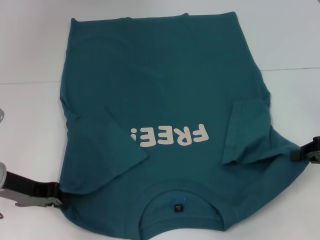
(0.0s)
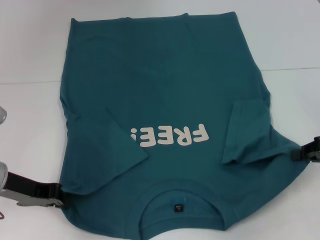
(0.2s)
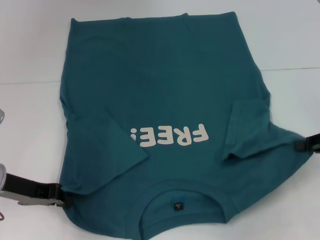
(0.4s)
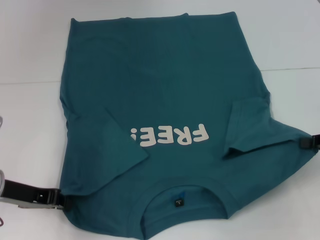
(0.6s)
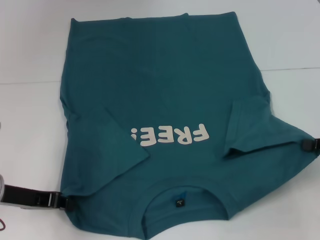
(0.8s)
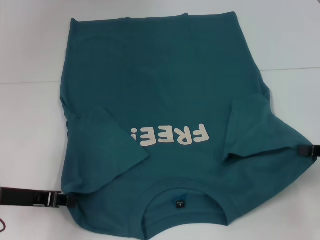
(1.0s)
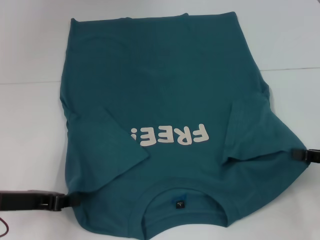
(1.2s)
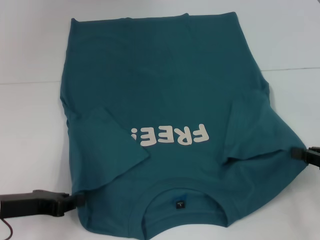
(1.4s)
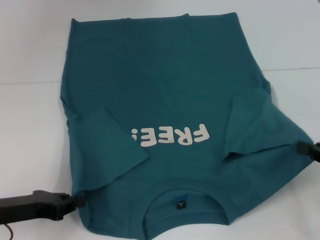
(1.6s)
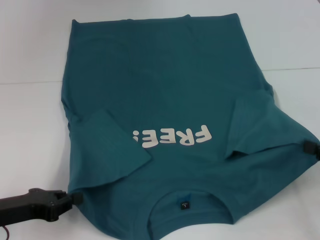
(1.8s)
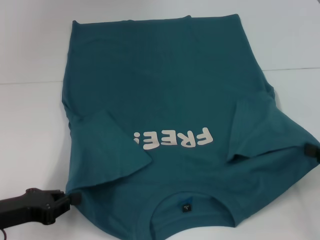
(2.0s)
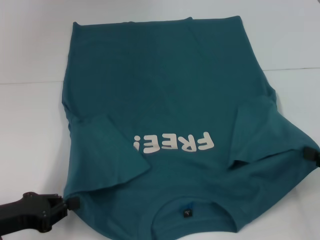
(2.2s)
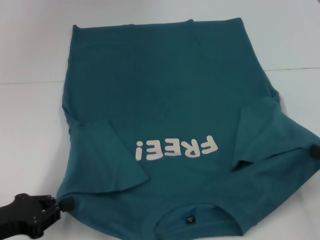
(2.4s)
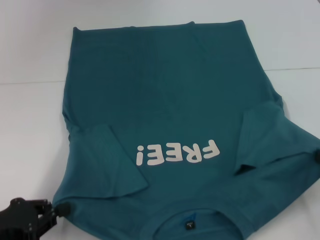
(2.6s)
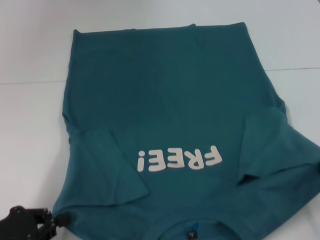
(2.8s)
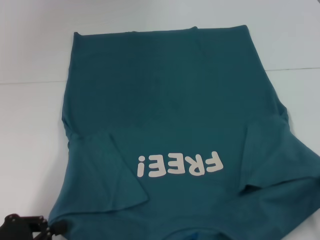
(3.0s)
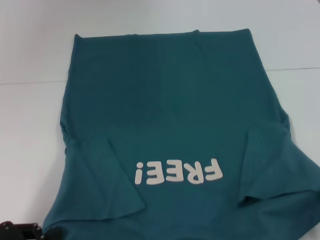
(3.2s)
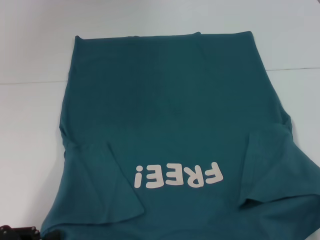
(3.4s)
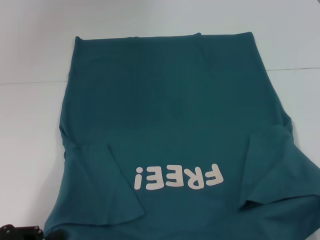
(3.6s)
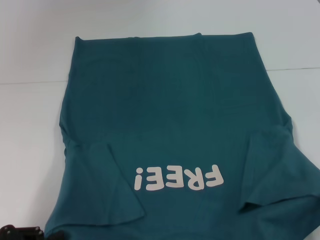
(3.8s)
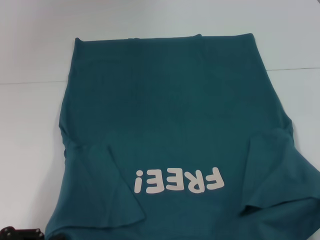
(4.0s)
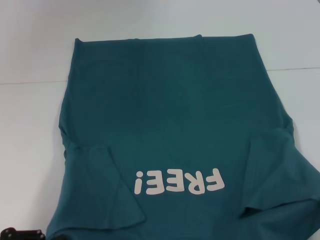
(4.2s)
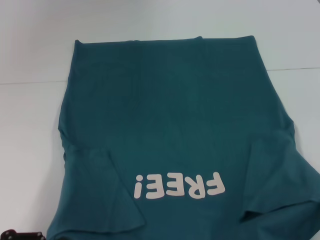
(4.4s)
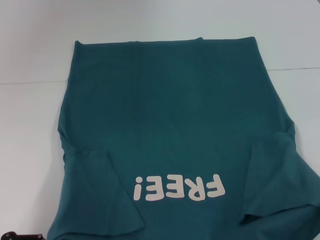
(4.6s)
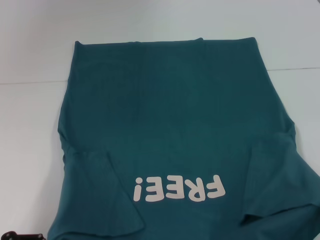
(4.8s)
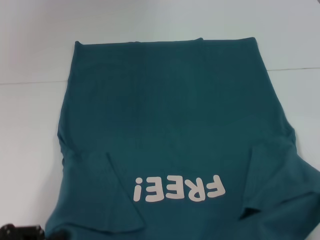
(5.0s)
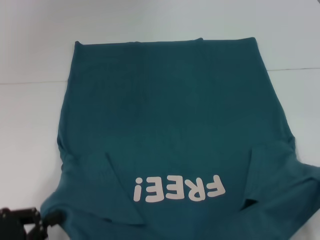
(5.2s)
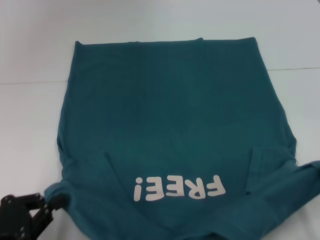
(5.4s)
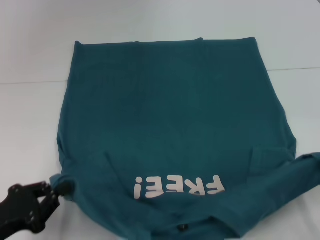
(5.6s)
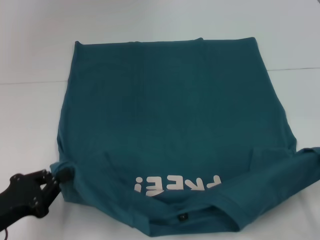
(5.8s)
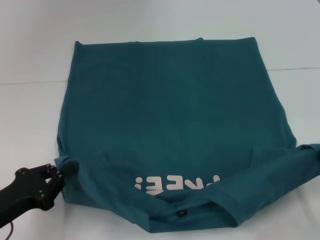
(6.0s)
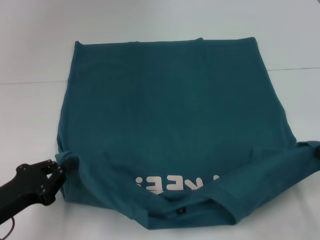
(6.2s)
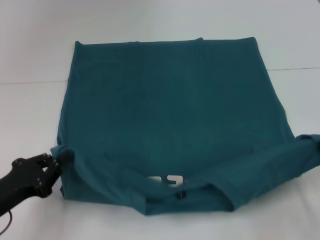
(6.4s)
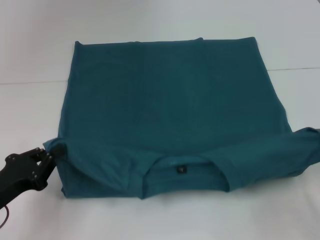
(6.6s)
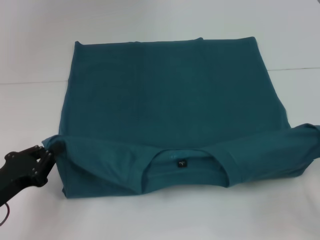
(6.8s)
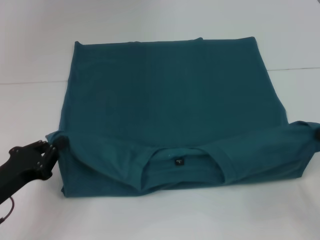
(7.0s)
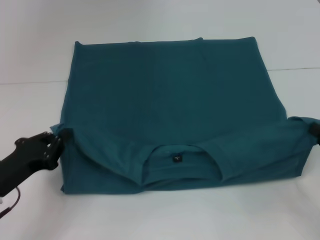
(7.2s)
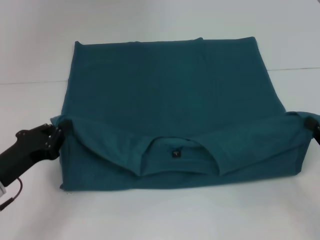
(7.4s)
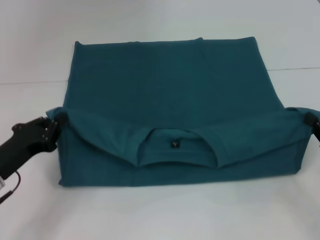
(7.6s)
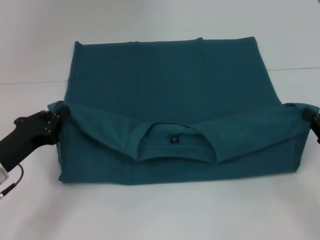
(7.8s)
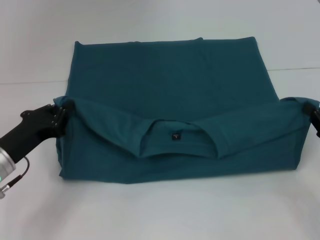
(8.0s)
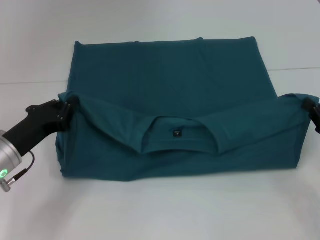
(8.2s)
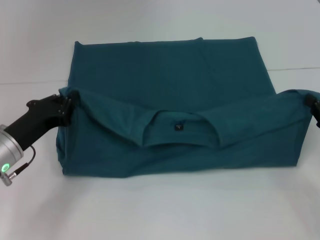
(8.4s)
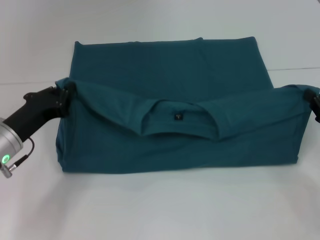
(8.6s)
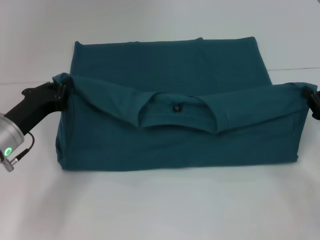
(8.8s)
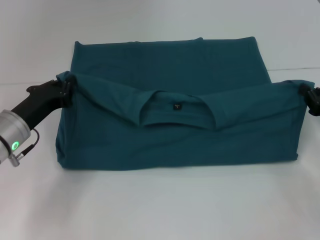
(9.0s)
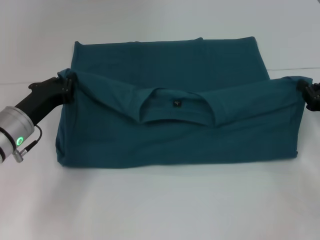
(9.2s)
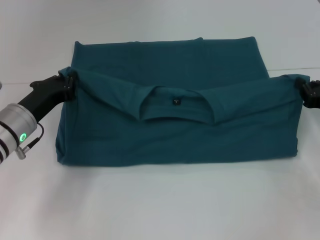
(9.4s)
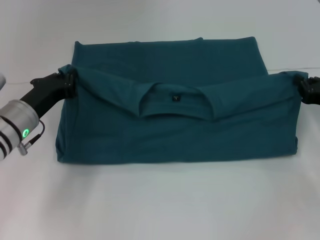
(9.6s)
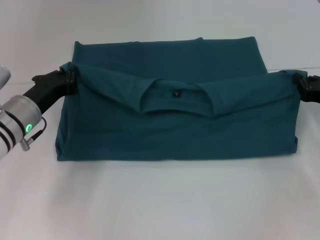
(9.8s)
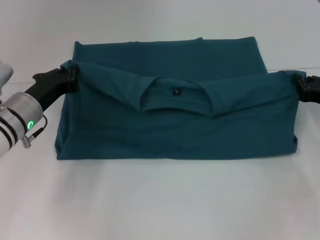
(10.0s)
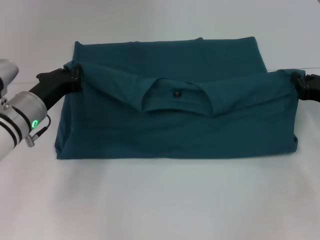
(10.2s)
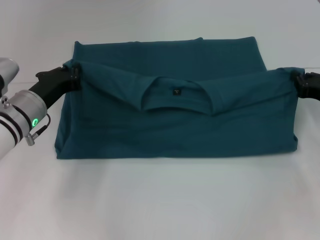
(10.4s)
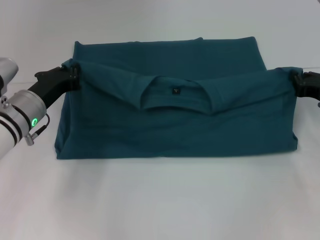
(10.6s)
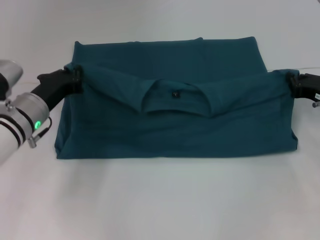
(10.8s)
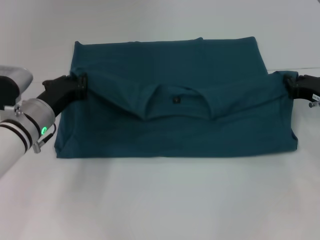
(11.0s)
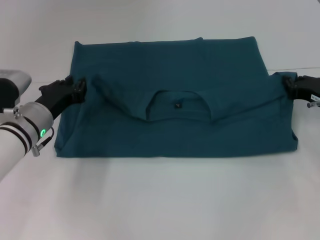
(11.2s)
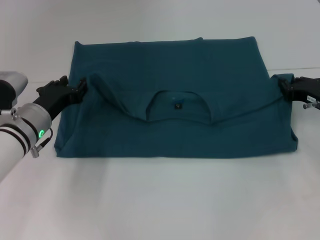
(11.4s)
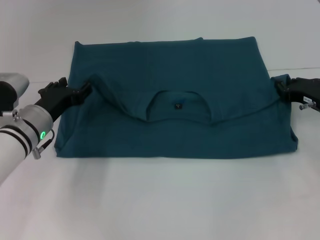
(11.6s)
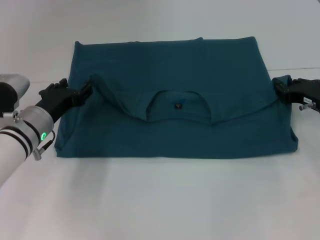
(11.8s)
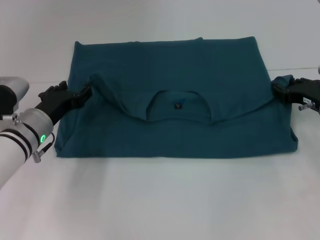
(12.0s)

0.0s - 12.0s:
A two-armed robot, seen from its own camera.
0.0s - 1.6s: Both grippers move backward, approximately 5 cm.
1.6s - 3.0s: Both grippers travel together backward, about 10 cm.
3.0s - 4.4s: There are only small adjustments of the grippers.
4.4s - 6.0s: Both grippers move forward, some 5 cm.
6.0s - 7.6s: The two grippers go some 5 cm forward.
7.6s - 9.0s: The two grippers go some 5 cm forward.
9.0s - 10.4s: The grippers move only a little.
10.4s - 12.0s: The left gripper opens up.

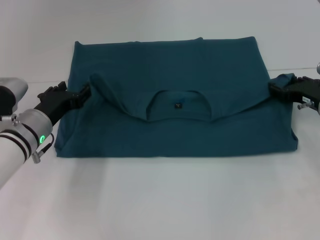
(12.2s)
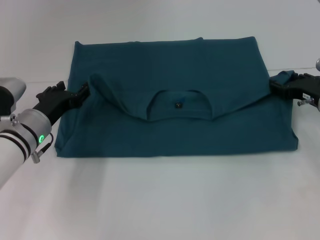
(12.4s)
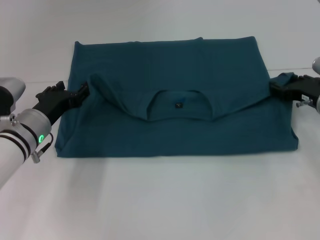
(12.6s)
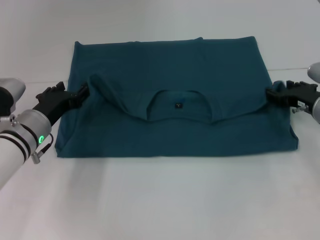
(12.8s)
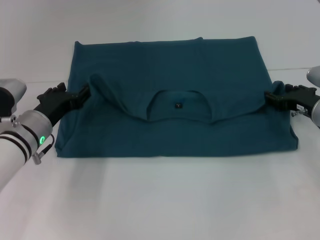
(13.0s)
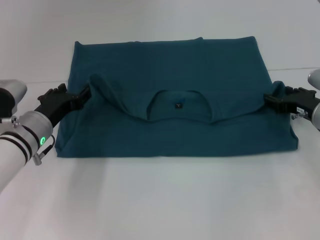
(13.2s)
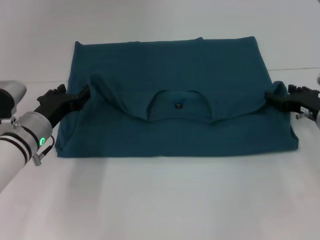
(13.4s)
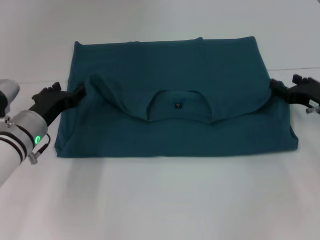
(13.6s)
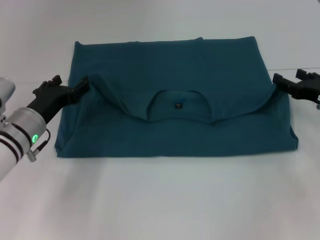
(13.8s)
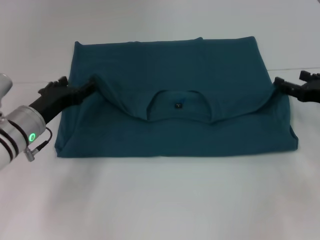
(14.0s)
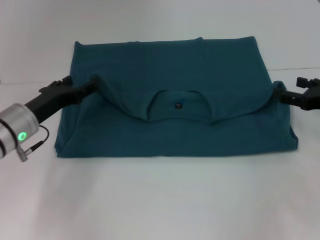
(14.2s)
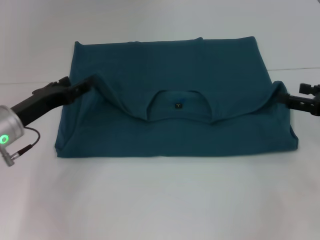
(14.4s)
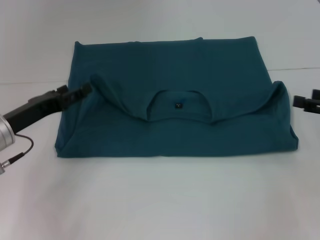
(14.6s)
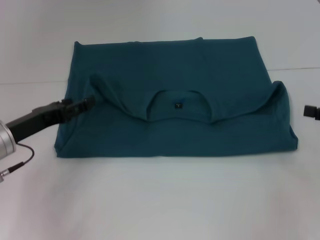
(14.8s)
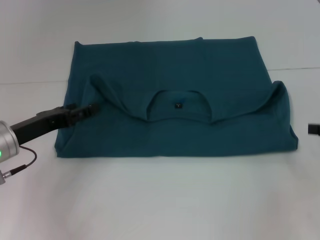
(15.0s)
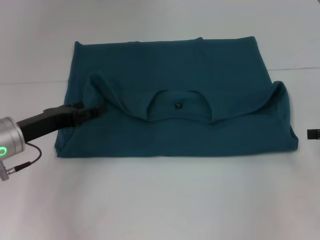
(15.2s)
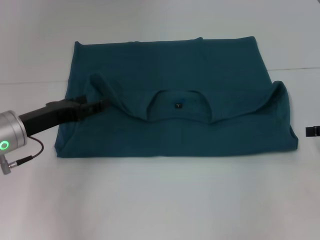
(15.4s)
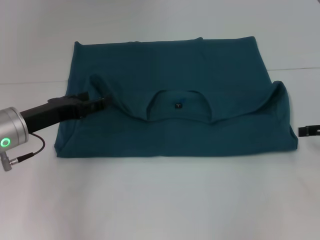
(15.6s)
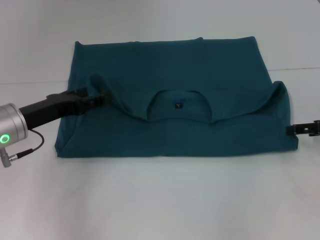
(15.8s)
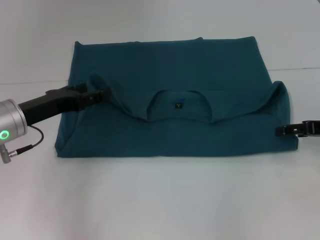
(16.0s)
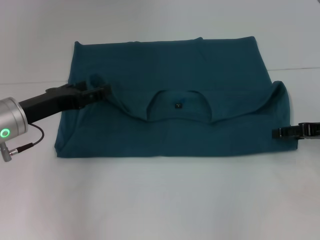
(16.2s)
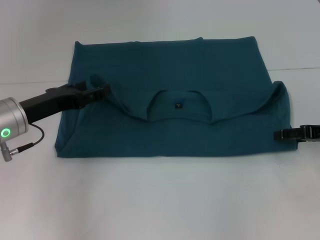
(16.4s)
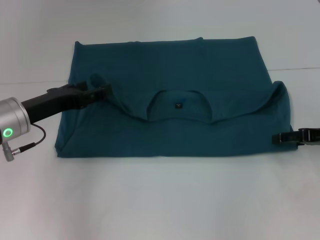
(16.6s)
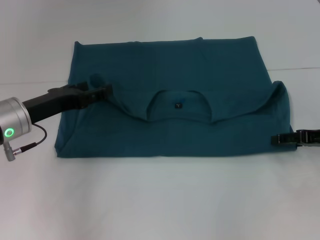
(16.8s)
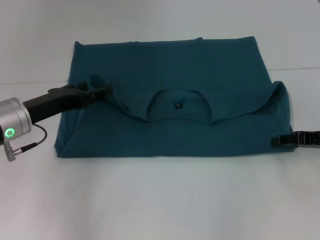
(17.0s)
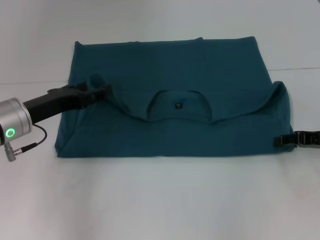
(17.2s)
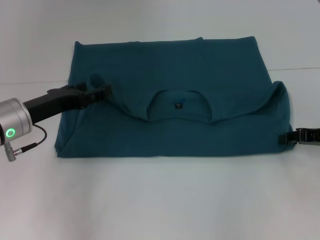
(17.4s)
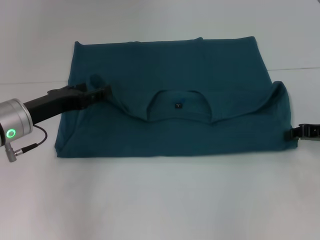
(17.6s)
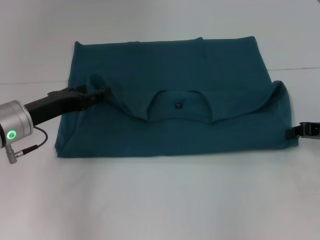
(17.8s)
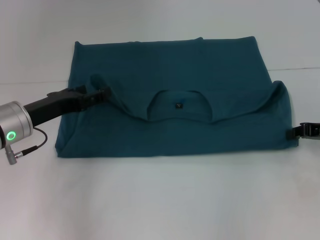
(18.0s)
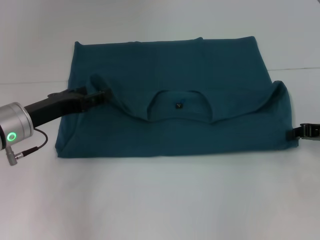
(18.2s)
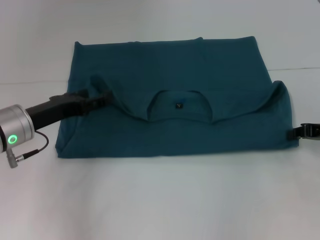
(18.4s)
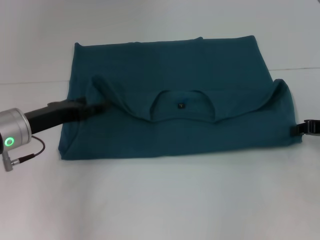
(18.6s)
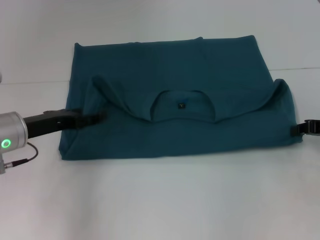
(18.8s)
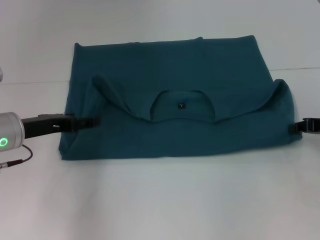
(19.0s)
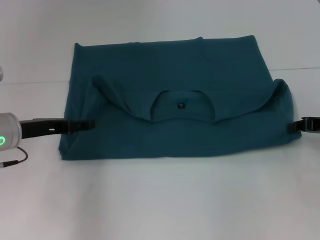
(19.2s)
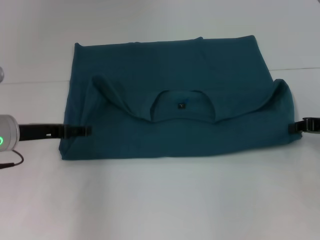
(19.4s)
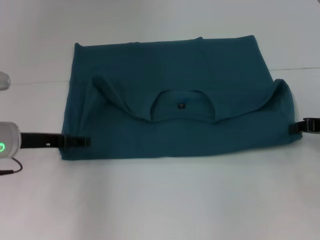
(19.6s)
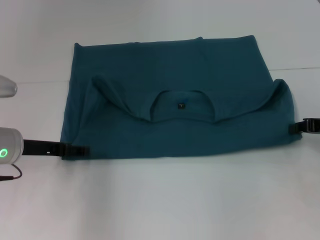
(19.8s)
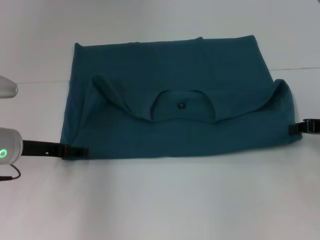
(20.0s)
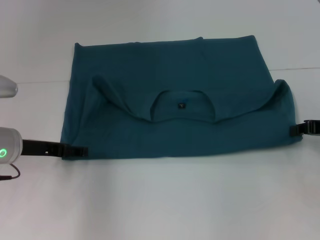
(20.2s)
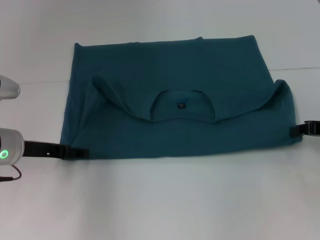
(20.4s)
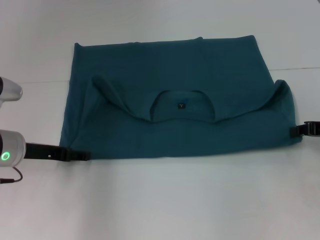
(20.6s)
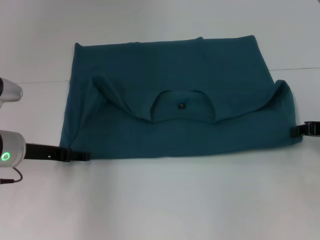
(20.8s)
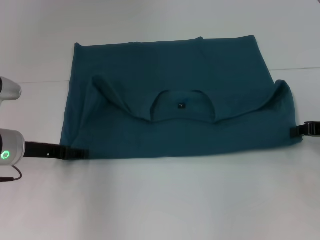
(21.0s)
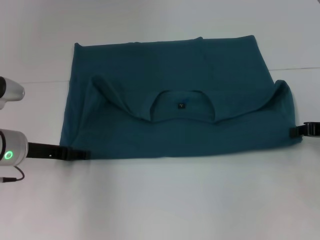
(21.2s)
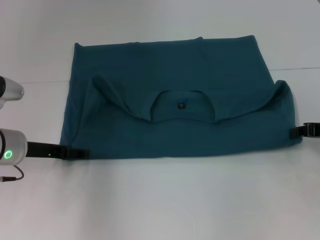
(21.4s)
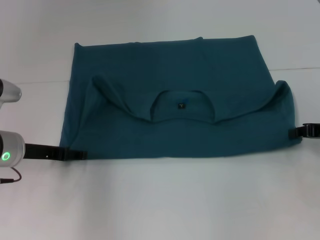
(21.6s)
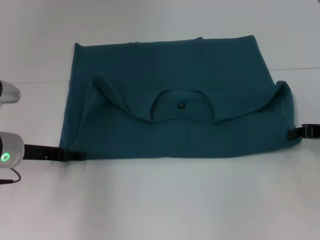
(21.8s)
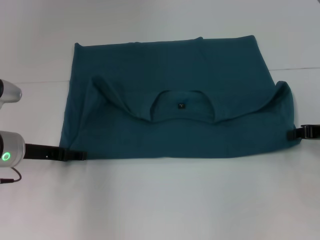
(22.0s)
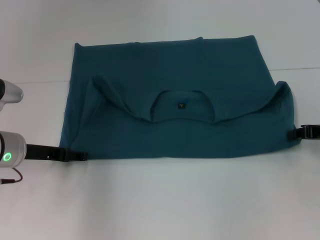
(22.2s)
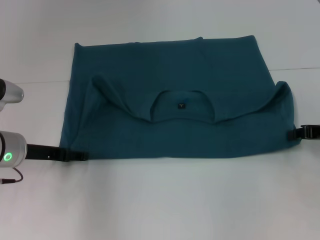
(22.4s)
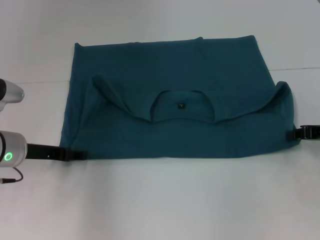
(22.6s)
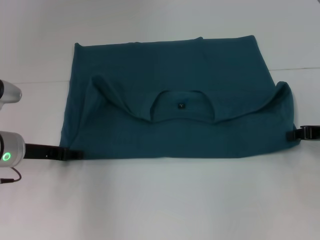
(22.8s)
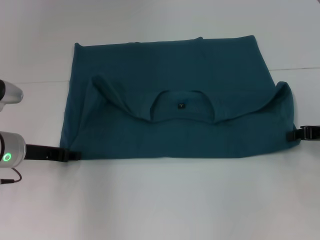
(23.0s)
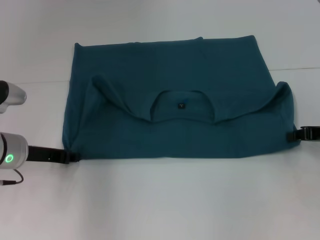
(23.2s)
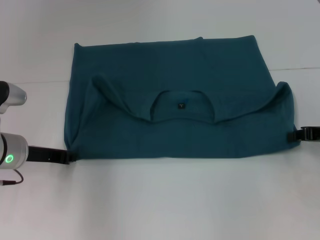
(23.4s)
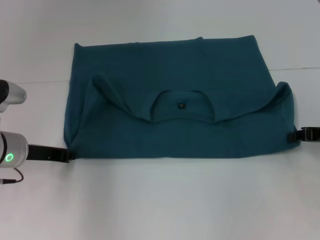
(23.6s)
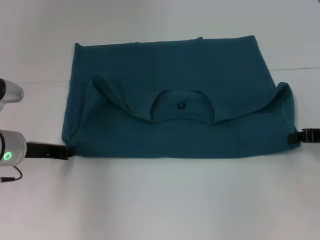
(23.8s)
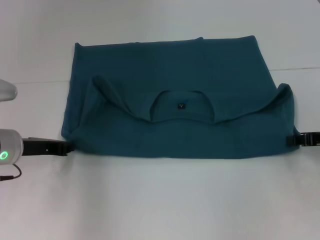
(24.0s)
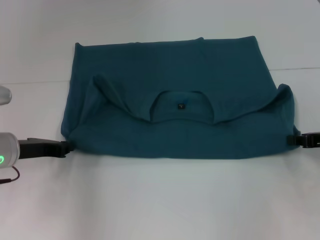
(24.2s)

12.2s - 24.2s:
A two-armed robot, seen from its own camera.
12.2s - 13.8s: The grippers stay close to where they were, moving slightly.
13.8s - 15.2s: The right gripper shifts some 10 cm to the right, upward and backward. The left gripper moves some 5 cm.
15.2s - 16.6s: The right gripper shifts by roughly 5 cm.
16.6s - 18.2s: The right gripper closes.
19.8s - 22.6s: The two grippers keep their place.
22.6s - 24.2s: The left gripper closes up.
